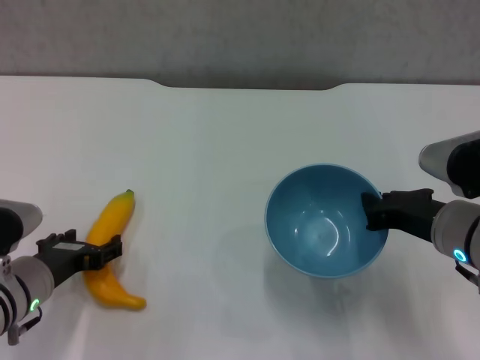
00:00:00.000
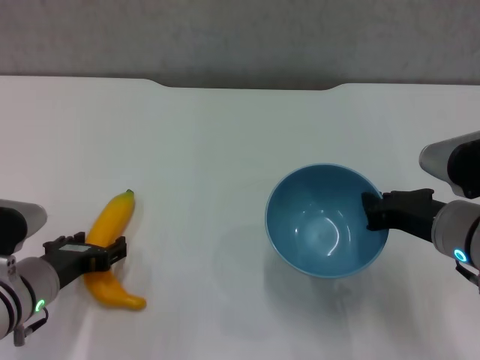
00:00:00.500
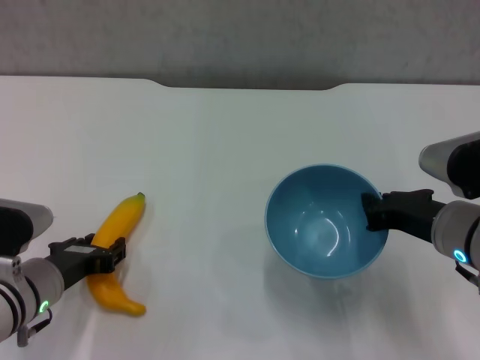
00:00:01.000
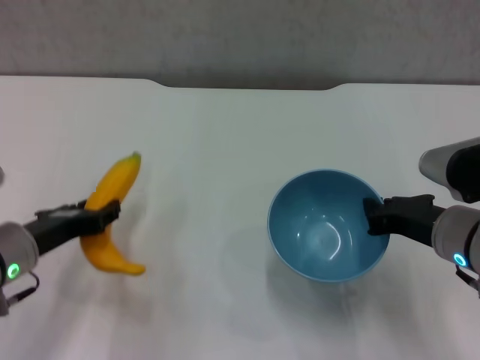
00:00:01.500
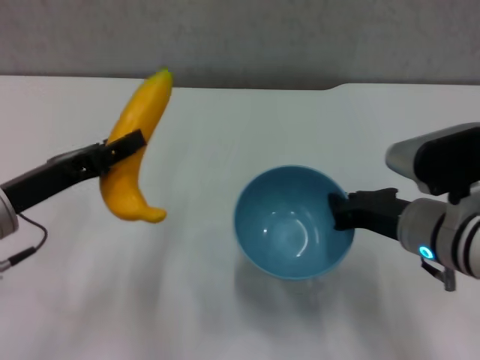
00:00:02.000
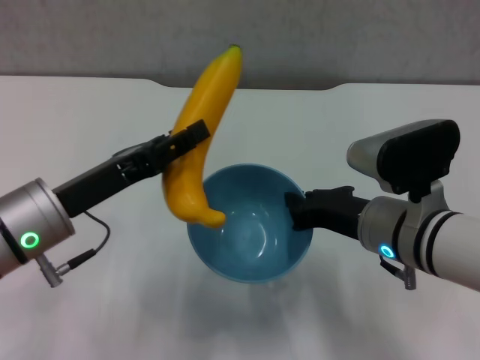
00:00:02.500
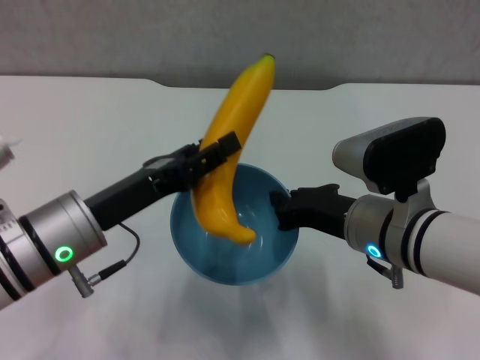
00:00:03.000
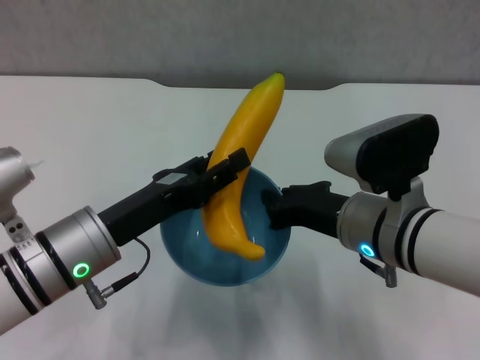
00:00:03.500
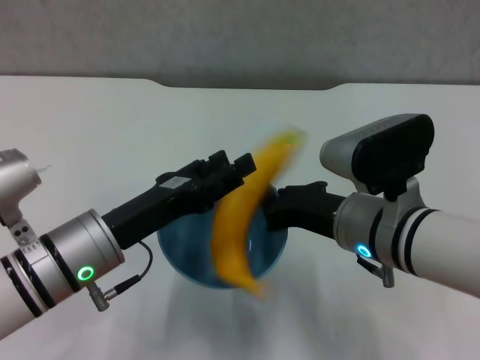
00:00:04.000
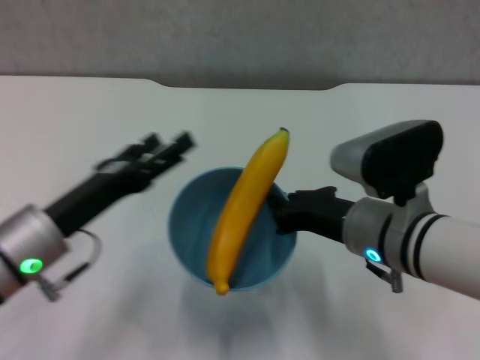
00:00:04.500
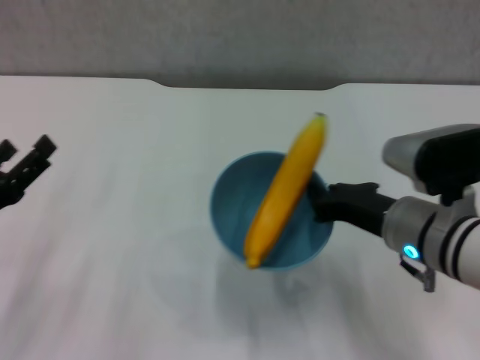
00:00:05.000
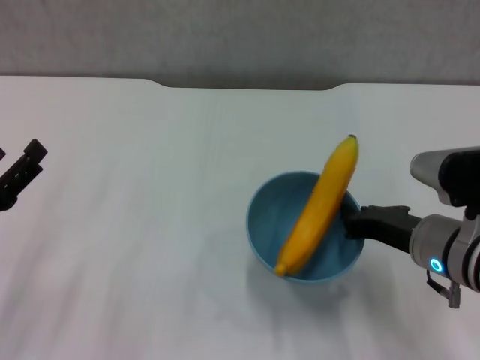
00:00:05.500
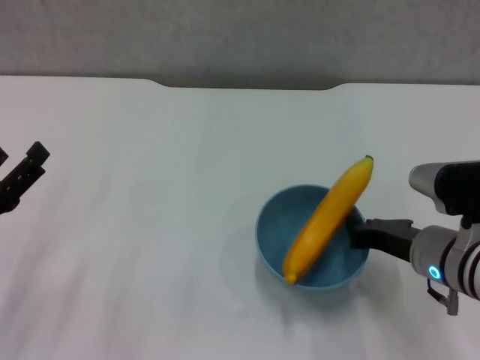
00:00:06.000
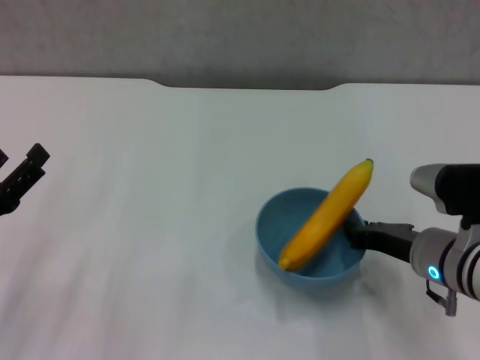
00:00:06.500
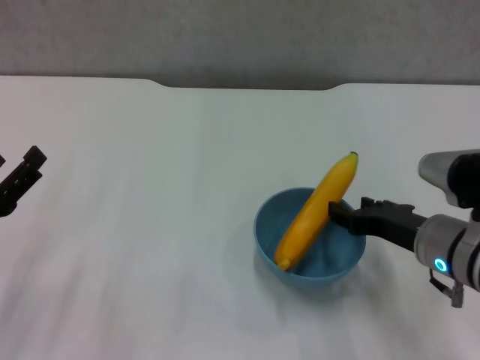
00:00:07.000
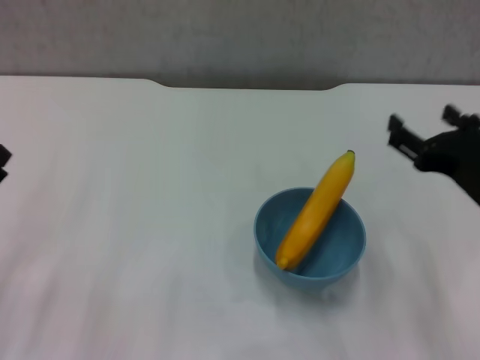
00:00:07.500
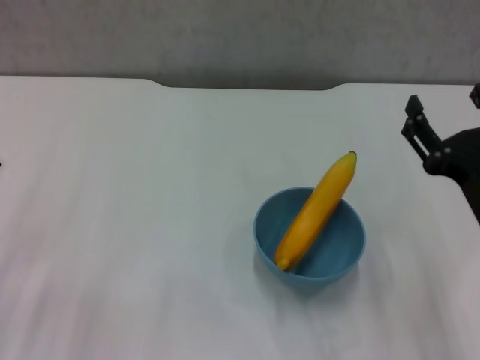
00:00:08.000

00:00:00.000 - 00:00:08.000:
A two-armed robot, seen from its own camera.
Step, 00:00:01.500 - 00:00:04.000: Place the banana in the blue bowl with left gripper.
Step, 00:00:04.500 - 00:00:07.000: Place the bowl on the table with right gripper.
00:00:00.000 - 00:00:02.000: The left gripper moves upward, some 10 cm, and closes up.
00:00:02.000 - 00:00:04.000: The right gripper moves to the left, some 5 cm. Meanwhile the left gripper is displaced to the right by approximately 10 cm.
00:00:04.000 - 00:00:06.000: The right gripper is displaced to the right and downward by roughly 10 cm. The left gripper shifts approximately 15 cm to the left, and opens up.
00:00:06.000 - 00:00:08.000: The right gripper is displaced backward and upward by roughly 10 cm, and opens.
